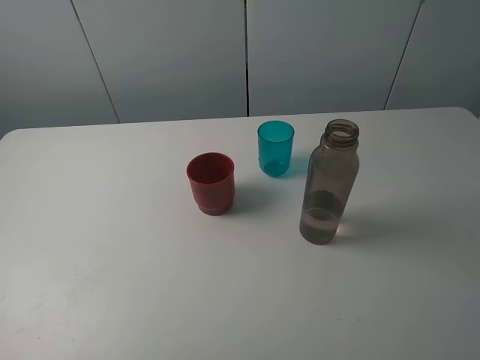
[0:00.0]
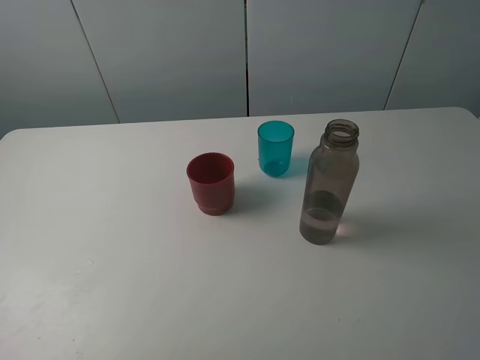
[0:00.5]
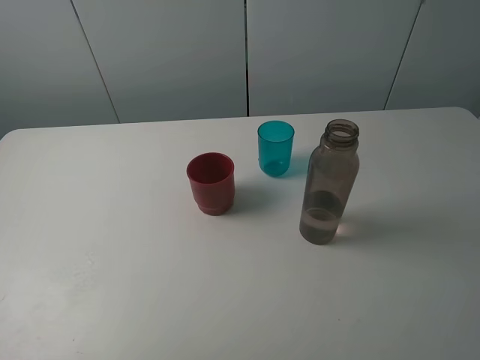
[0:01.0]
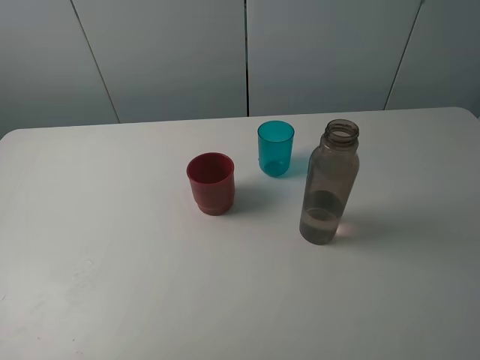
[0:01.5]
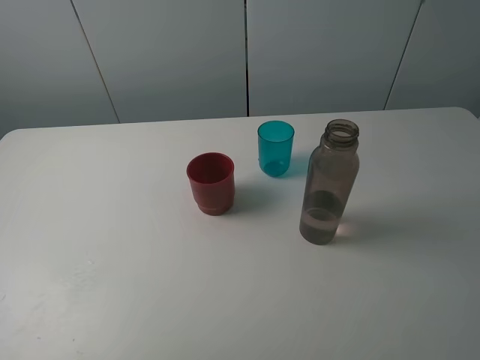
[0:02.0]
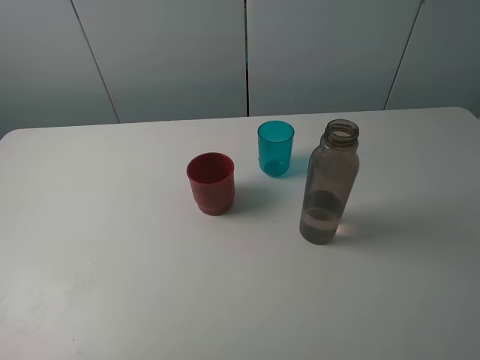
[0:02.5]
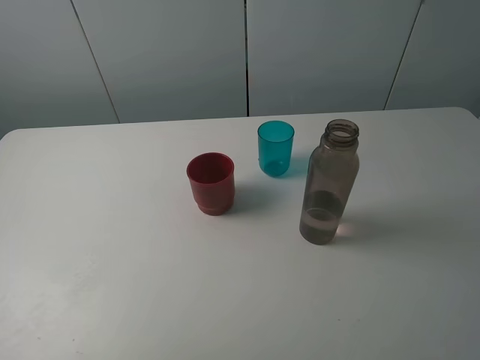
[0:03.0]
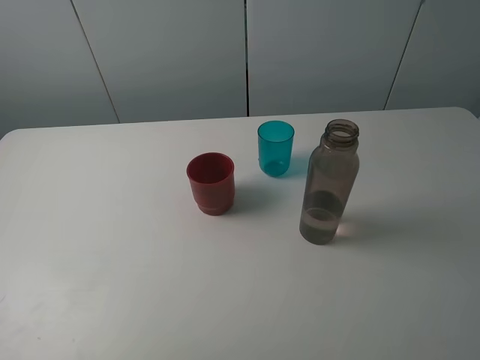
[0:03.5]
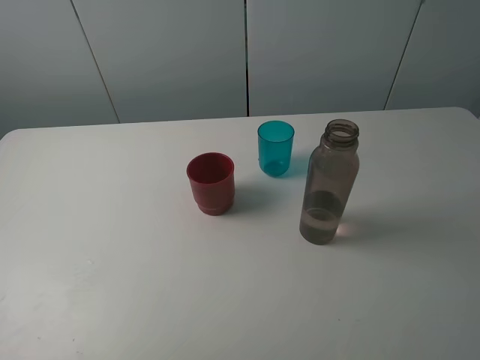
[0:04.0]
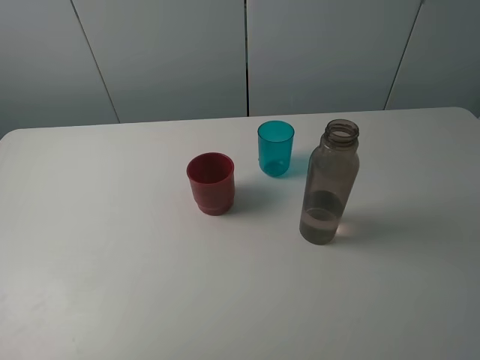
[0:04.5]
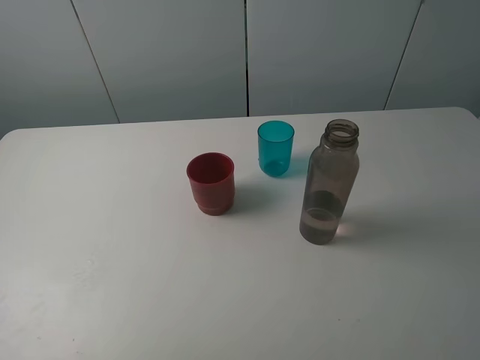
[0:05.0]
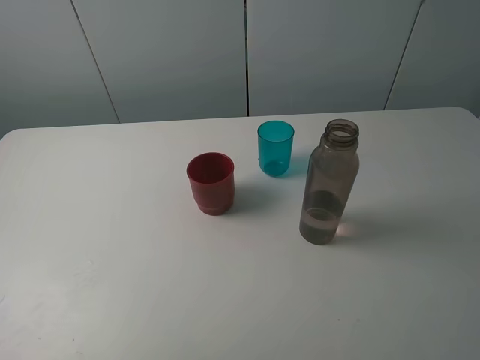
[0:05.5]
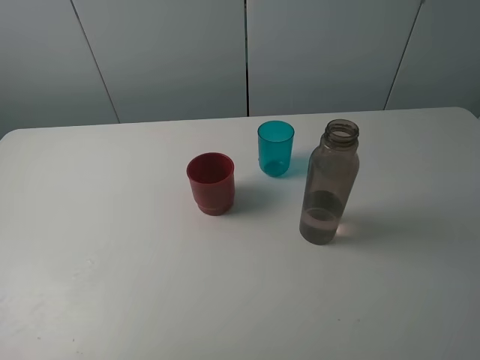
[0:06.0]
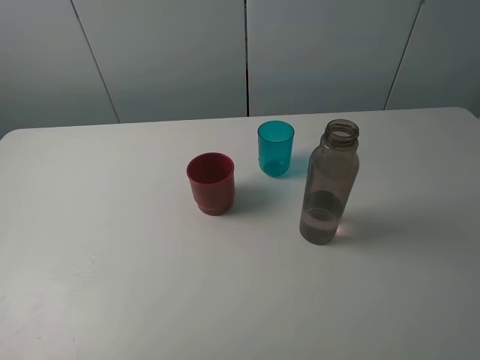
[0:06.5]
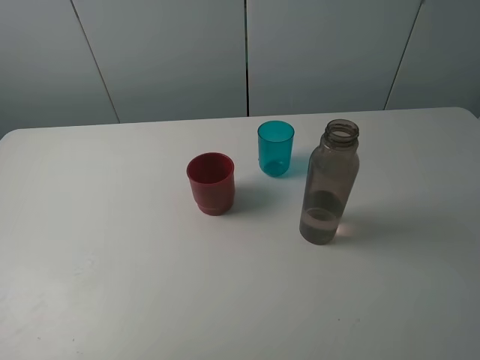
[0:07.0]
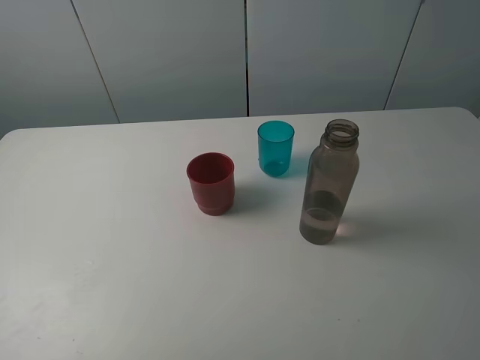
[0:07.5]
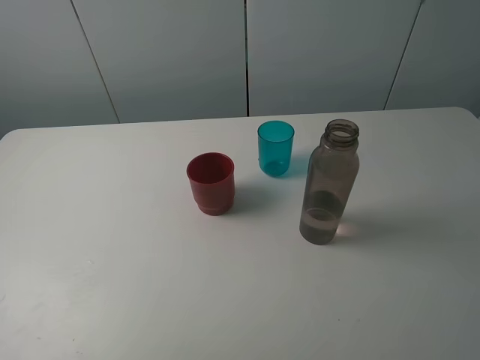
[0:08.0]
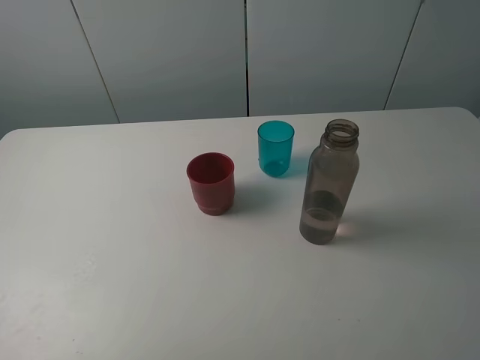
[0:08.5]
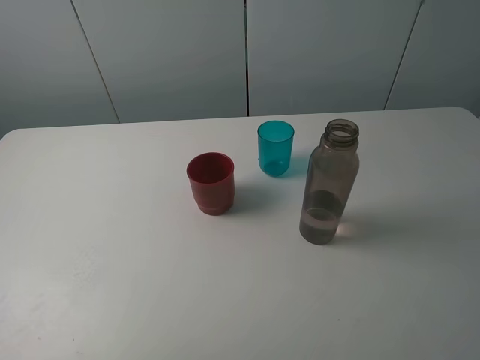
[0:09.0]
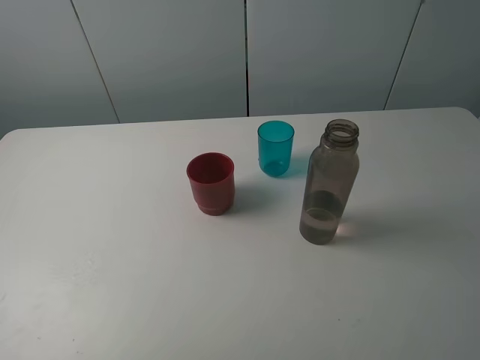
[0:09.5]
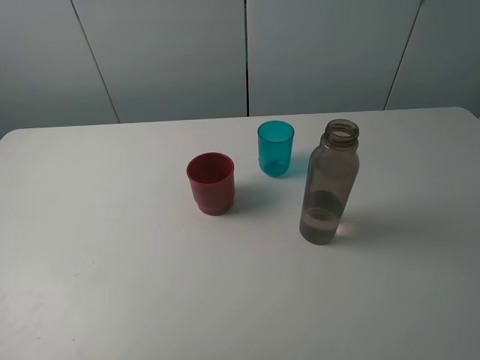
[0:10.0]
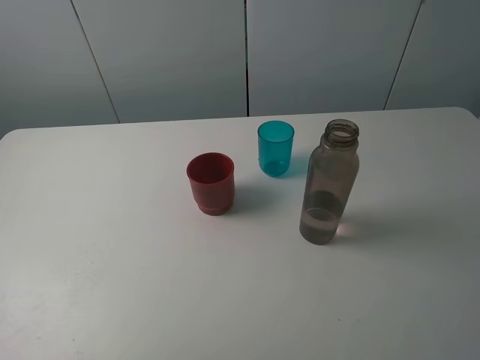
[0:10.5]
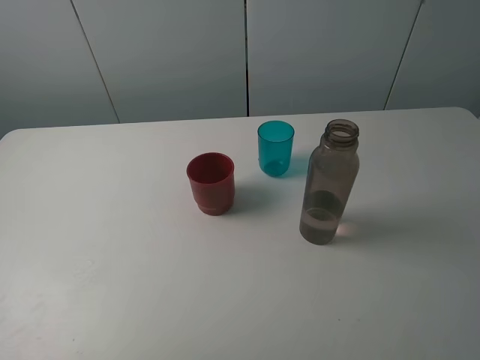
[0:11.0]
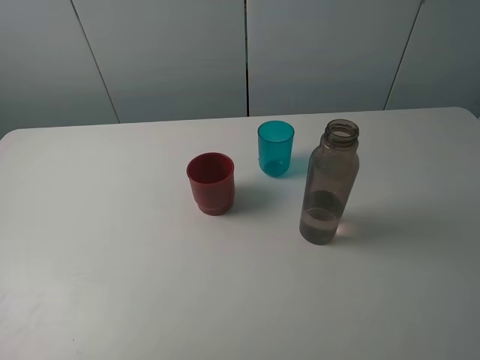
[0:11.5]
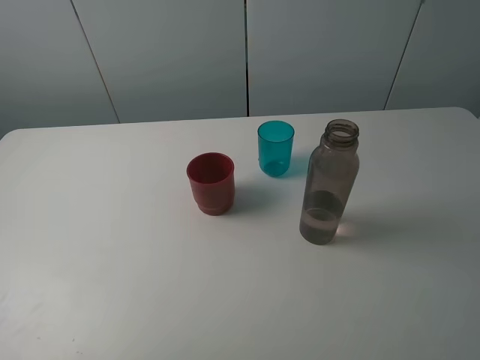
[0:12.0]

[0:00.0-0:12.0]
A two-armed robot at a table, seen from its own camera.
Task of the whole recording: pick up the bottle and pour water into the cup, then pick up the cup containing water and pour it into another cup.
0:00.0 to 0:12.0: The two grippers keep their place.

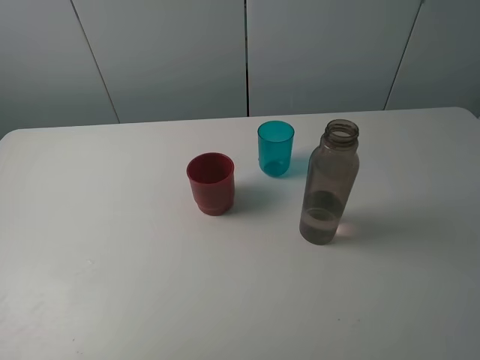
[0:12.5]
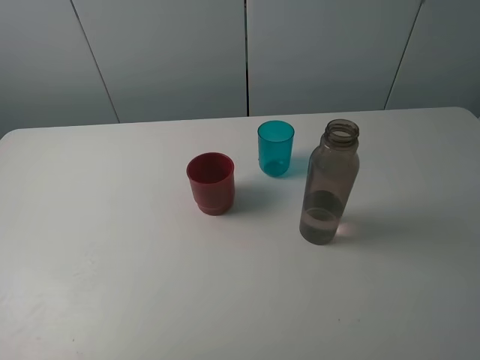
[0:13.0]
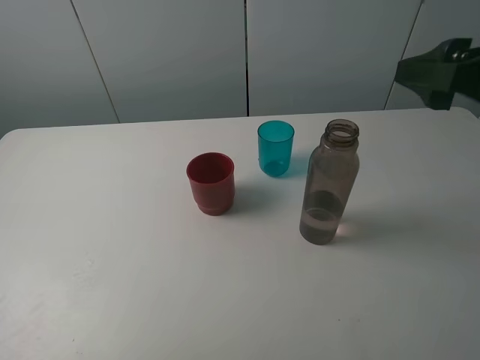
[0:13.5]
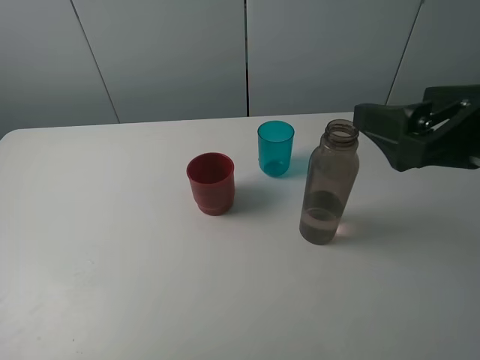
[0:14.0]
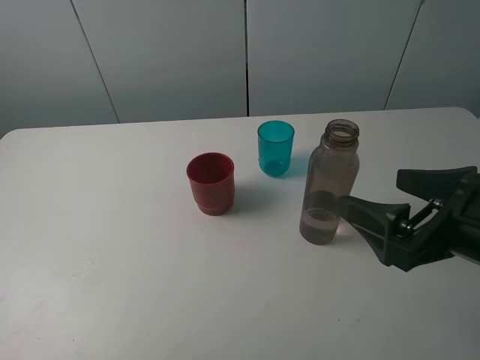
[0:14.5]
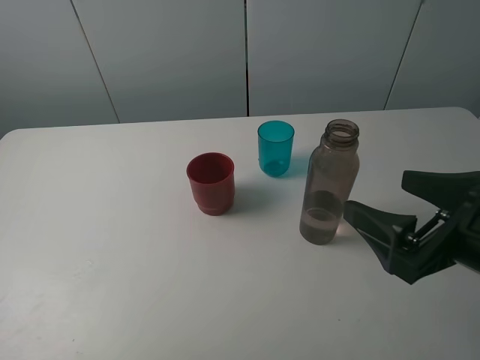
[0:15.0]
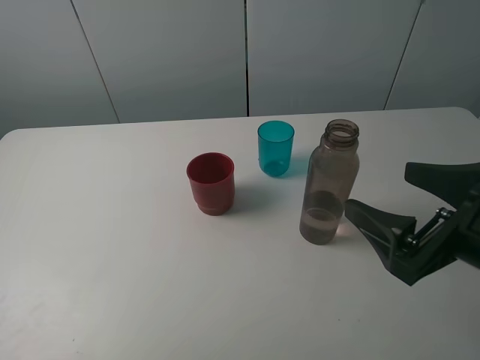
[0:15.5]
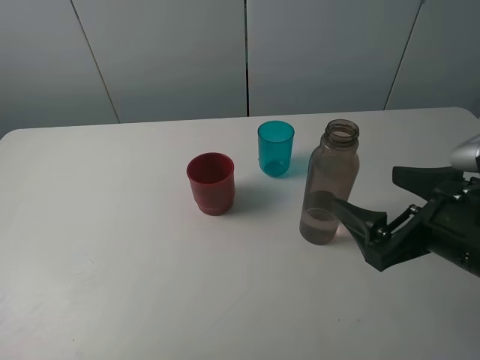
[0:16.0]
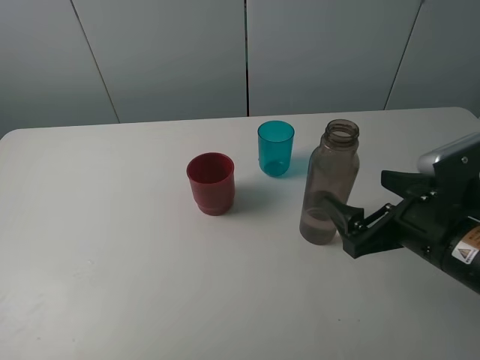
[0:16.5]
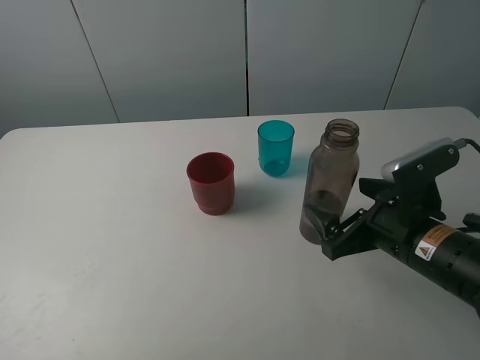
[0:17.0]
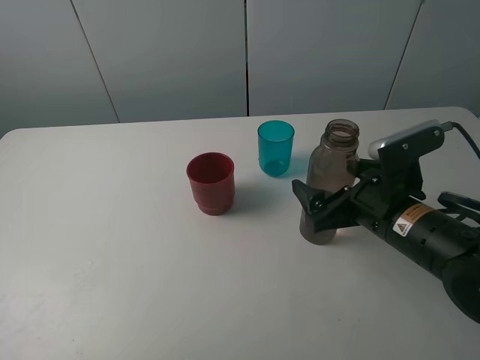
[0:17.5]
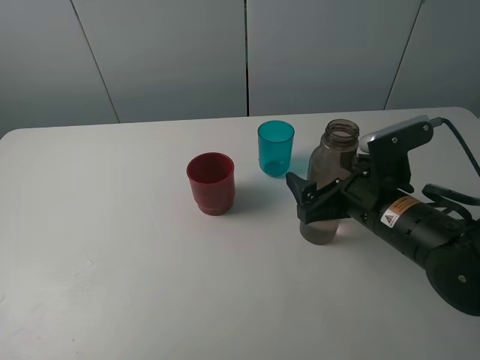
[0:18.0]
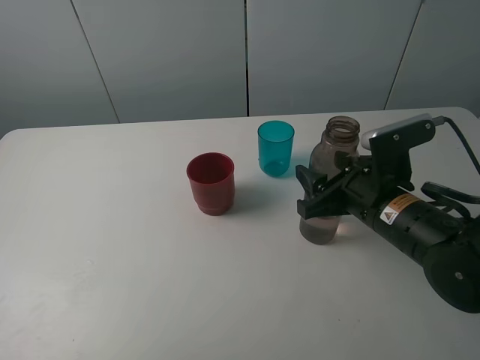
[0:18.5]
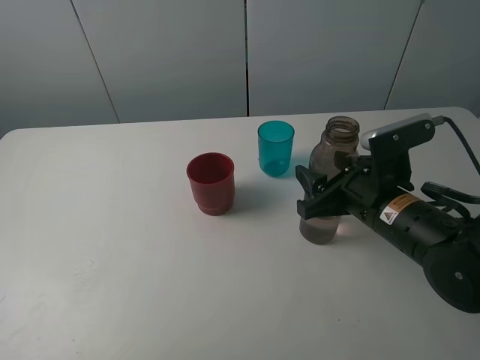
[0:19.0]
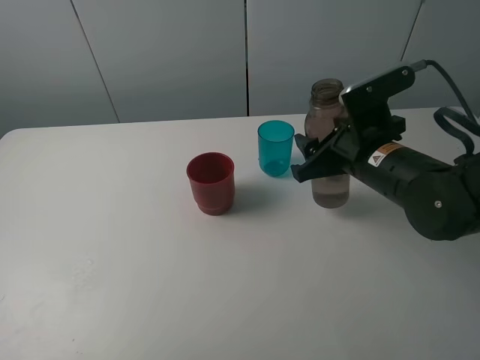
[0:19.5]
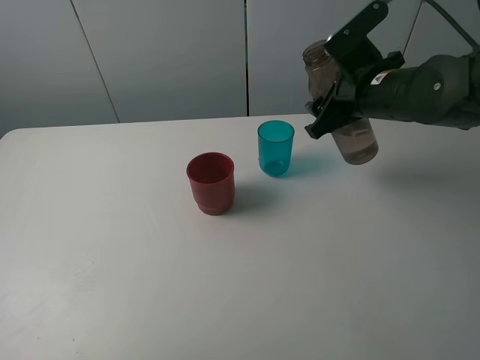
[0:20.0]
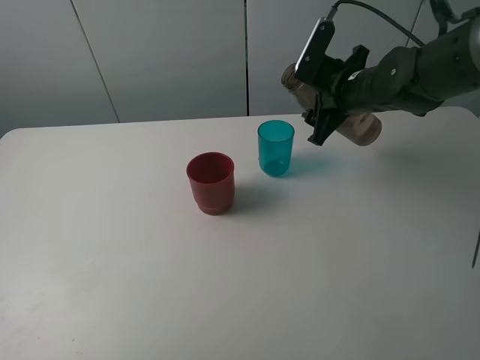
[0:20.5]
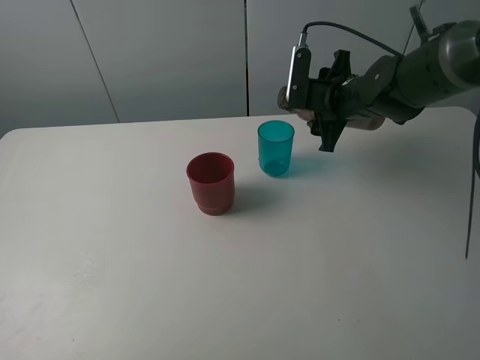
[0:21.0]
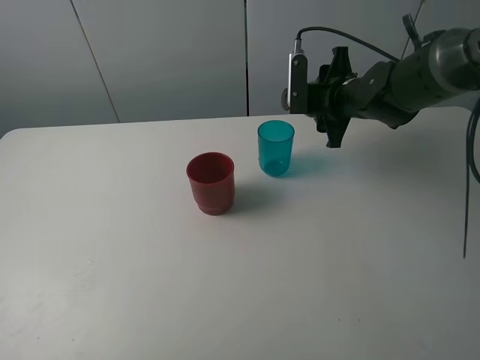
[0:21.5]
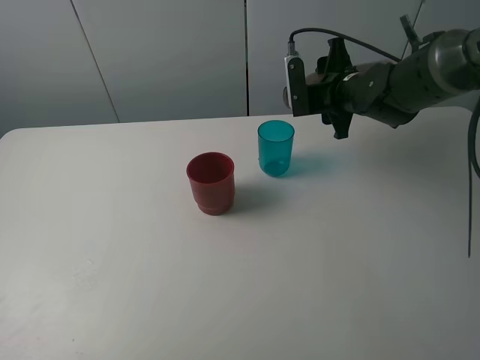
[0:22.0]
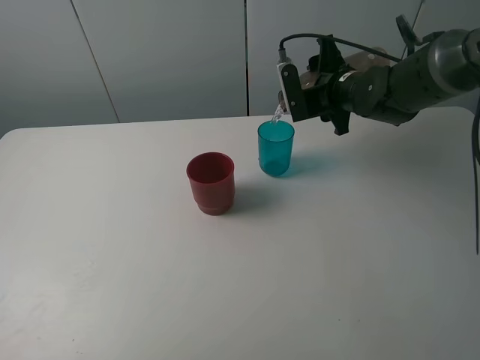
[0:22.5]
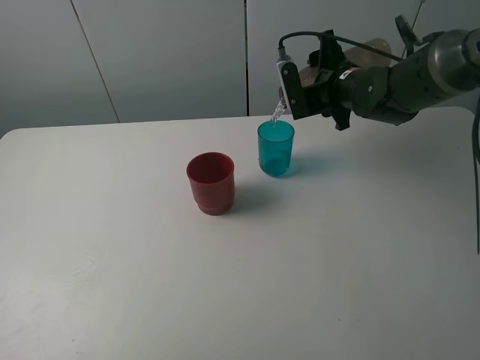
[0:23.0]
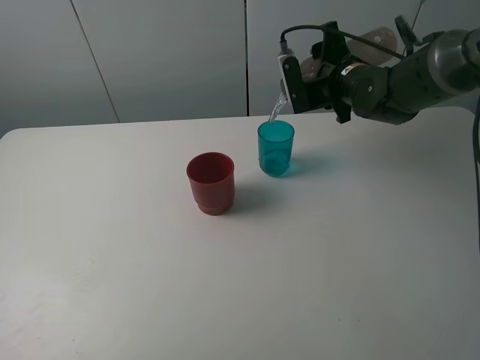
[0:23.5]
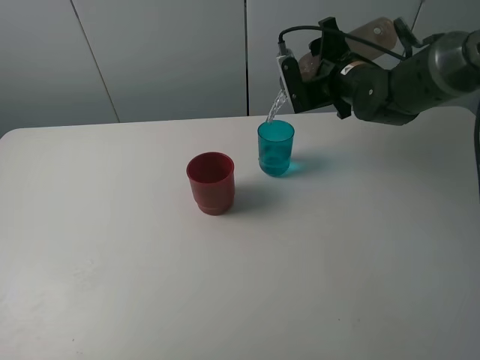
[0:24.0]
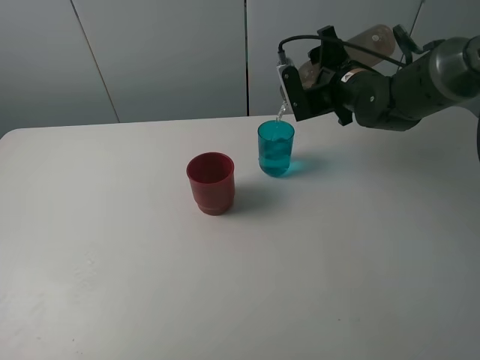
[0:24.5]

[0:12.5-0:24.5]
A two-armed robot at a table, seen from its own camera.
Task of the whole recording: pick up the bottle and pour water into the cup, then pick up the cup containing water and pour it into another cup.
Step, 0:12.5 to 0:18.5: Grasp the brown bottle with the right gripper.
0:12.5 to 0:14.5: The right gripper travels forward, downward and to the left by roughly 15 cm.
0:14.5 to 0:16.5: The right gripper shifts some 5 cm downward.
0:16.5 to 0:18.5: The right gripper heads forward, covering roughly 5 cm, and closes its fingers.
0:18.5 to 0:20.5: The right gripper moves forward, some 15 cm.
0:22.5 to 0:24.5: There are only small adjustments of the grippers.

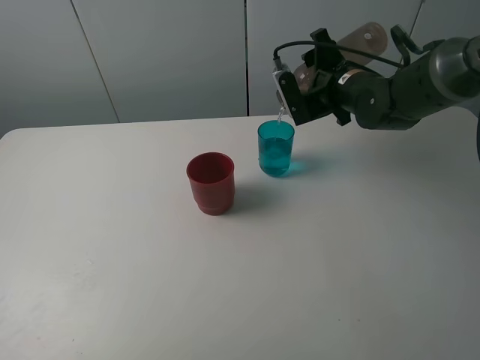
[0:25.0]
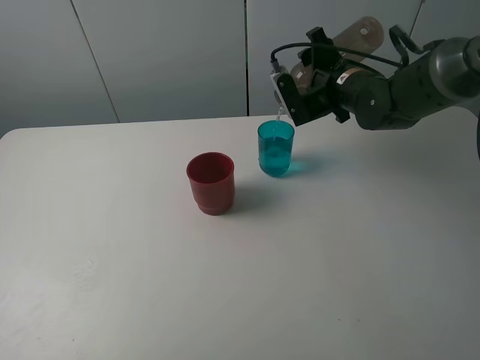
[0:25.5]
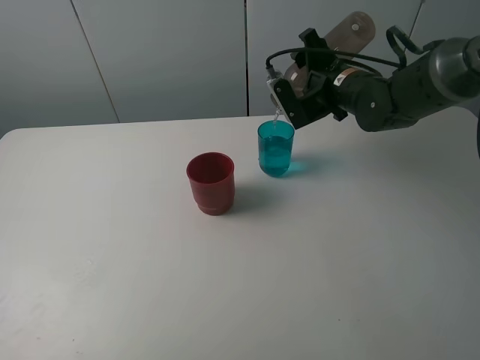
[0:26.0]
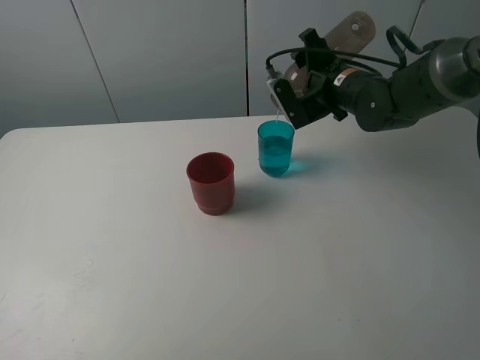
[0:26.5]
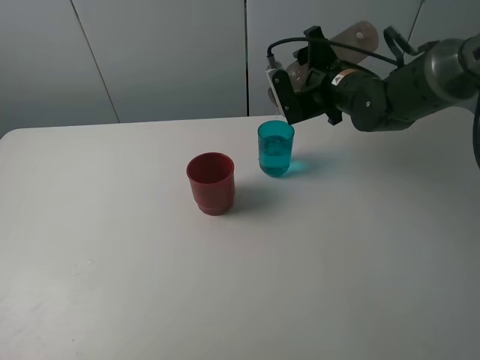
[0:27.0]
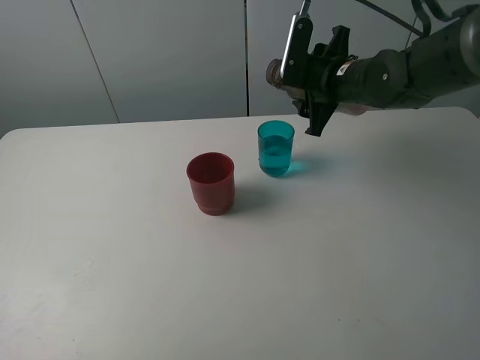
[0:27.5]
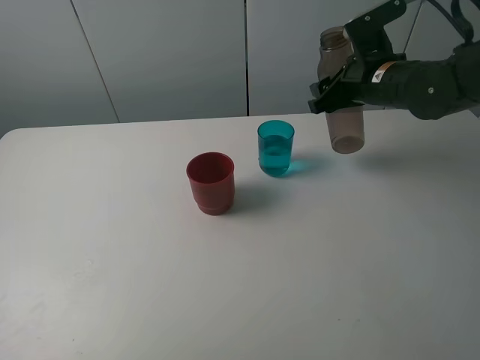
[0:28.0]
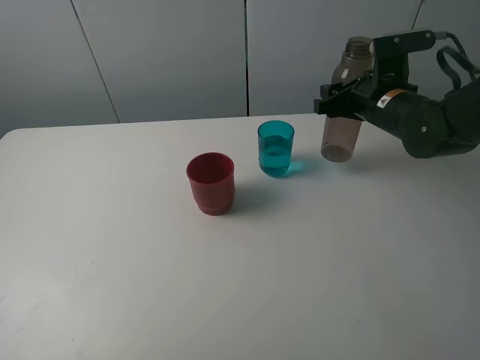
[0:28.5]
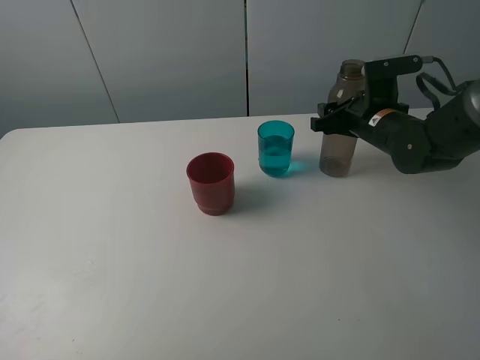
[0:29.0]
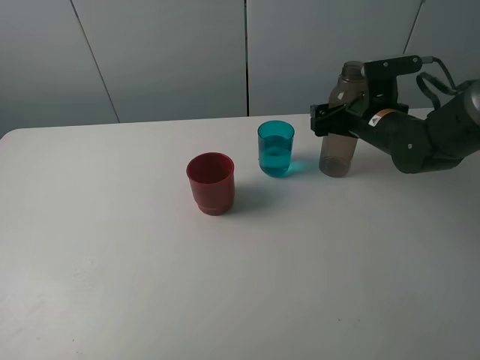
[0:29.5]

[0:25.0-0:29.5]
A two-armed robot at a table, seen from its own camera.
Task of the whole recording: pick up the bottle and pour water into the cup, then pick up the cup containing water and pour it into another cup.
Step, 0:25.0 to 0:27.0: Pour water from brown bottle to blue cup with the right gripper.
0:25.0 to 0:27.0: The grippers move only a little.
0:27.0 to 0:29.5: The right gripper travels to the right by roughly 5 cm, and opens its fingers.
